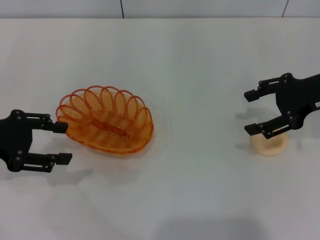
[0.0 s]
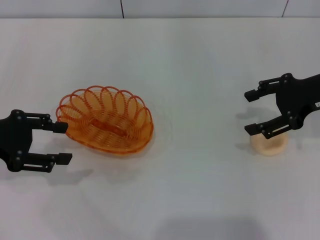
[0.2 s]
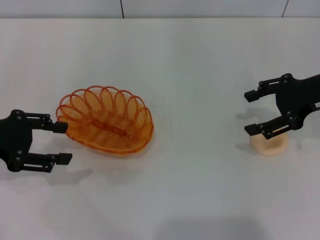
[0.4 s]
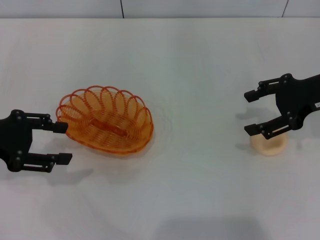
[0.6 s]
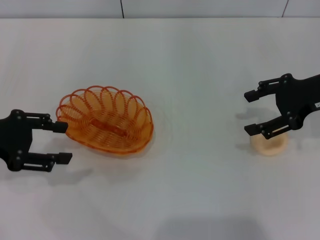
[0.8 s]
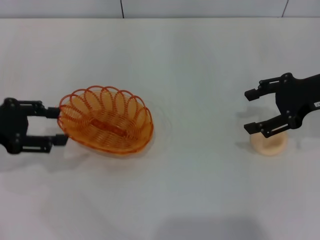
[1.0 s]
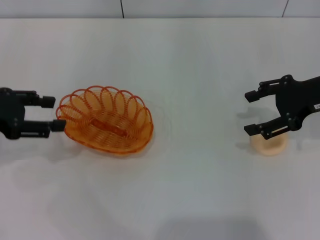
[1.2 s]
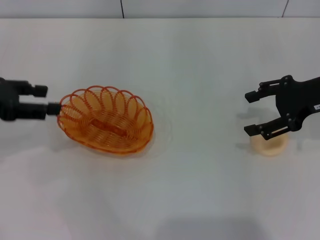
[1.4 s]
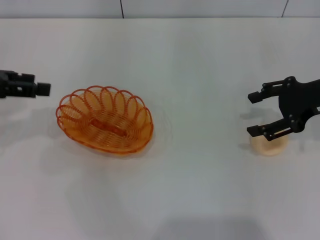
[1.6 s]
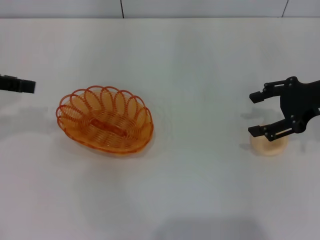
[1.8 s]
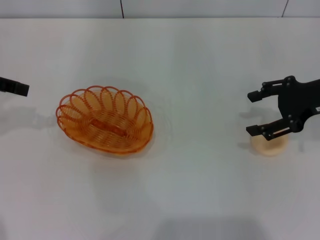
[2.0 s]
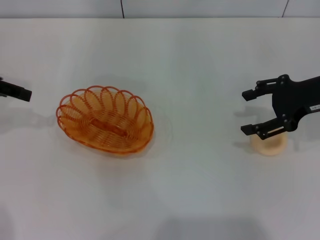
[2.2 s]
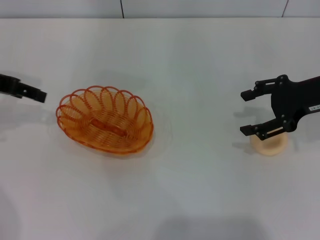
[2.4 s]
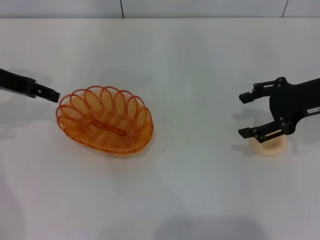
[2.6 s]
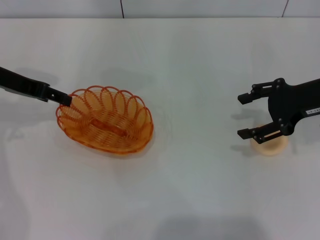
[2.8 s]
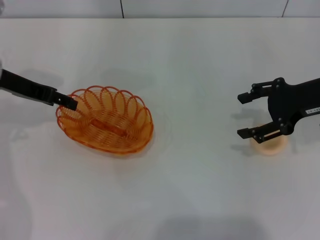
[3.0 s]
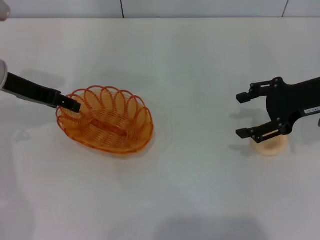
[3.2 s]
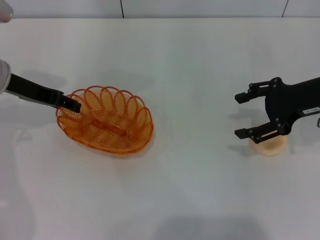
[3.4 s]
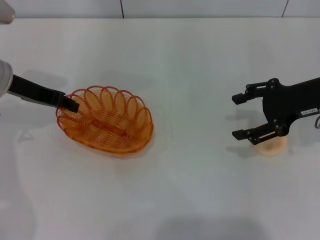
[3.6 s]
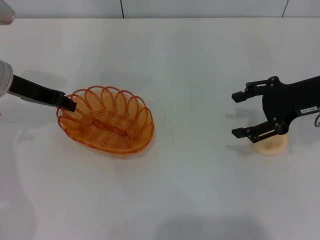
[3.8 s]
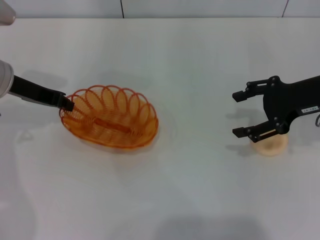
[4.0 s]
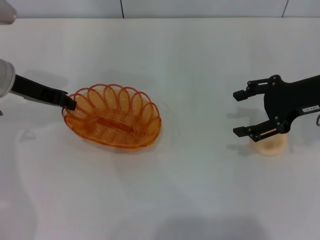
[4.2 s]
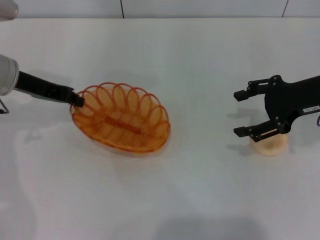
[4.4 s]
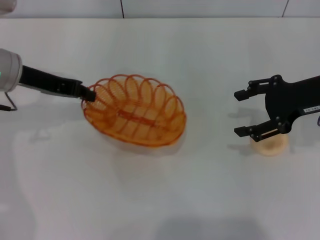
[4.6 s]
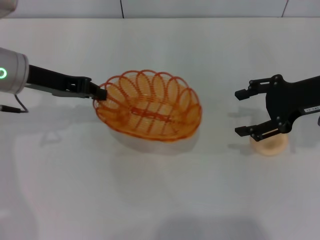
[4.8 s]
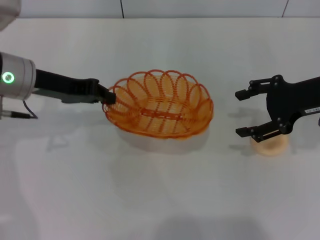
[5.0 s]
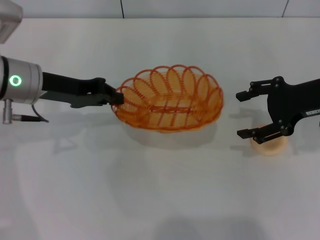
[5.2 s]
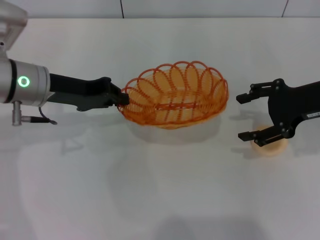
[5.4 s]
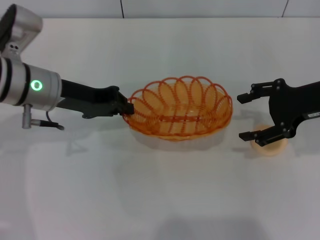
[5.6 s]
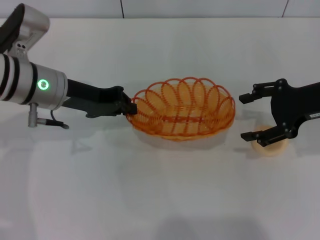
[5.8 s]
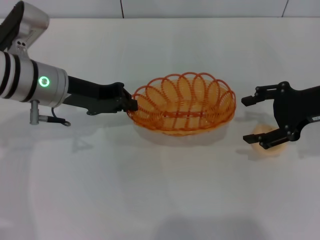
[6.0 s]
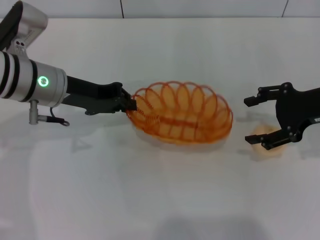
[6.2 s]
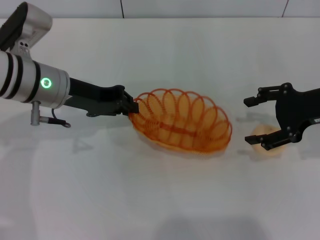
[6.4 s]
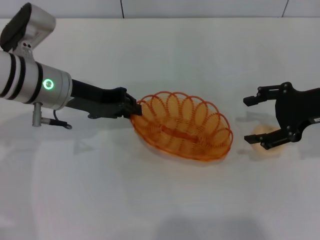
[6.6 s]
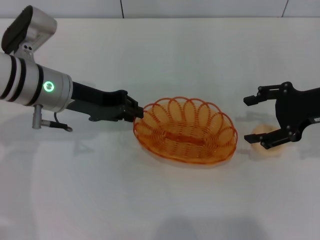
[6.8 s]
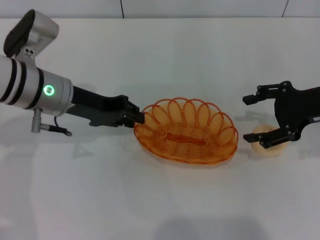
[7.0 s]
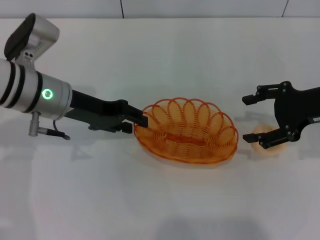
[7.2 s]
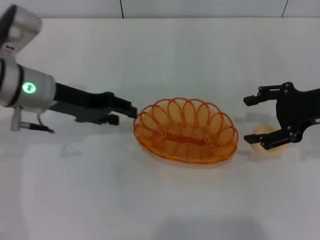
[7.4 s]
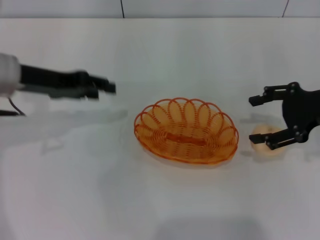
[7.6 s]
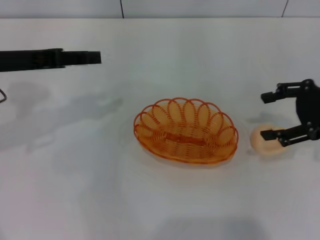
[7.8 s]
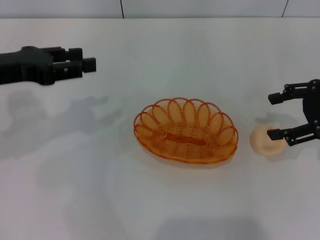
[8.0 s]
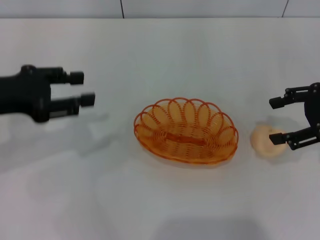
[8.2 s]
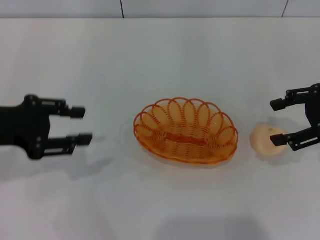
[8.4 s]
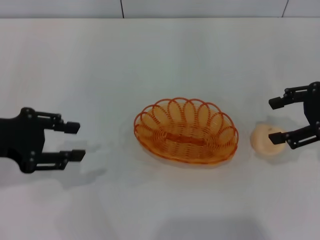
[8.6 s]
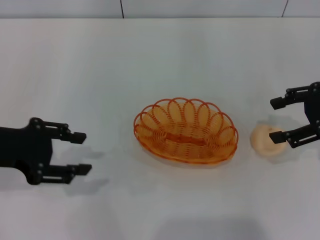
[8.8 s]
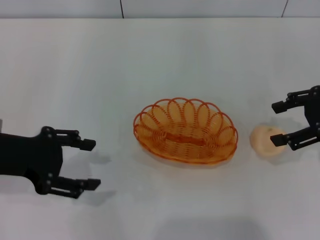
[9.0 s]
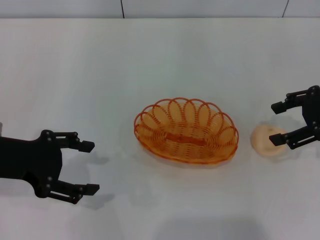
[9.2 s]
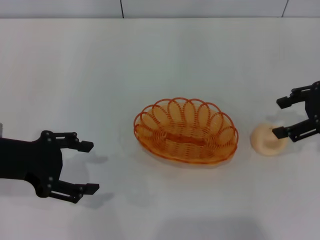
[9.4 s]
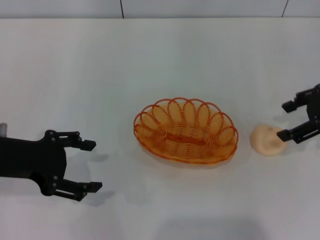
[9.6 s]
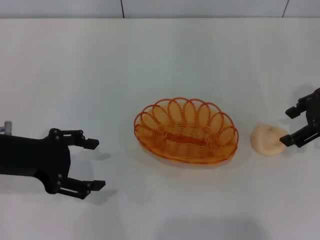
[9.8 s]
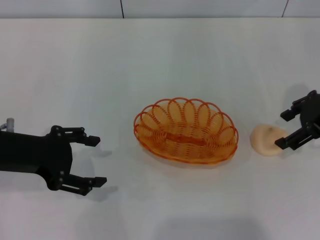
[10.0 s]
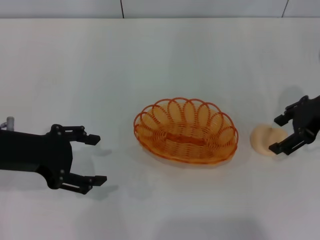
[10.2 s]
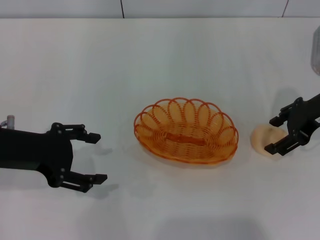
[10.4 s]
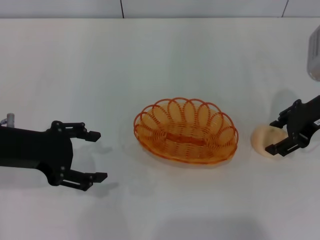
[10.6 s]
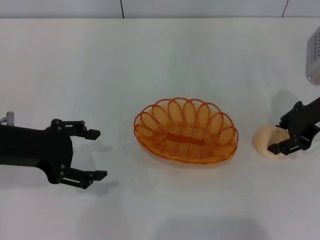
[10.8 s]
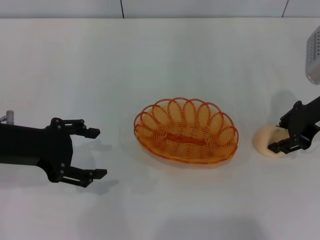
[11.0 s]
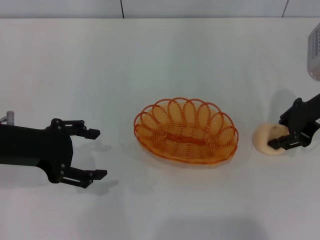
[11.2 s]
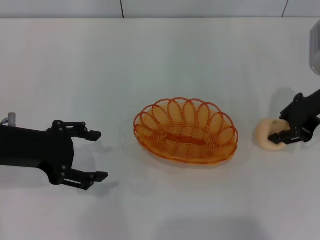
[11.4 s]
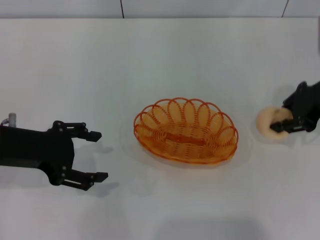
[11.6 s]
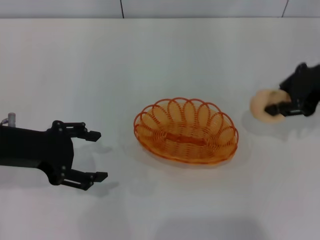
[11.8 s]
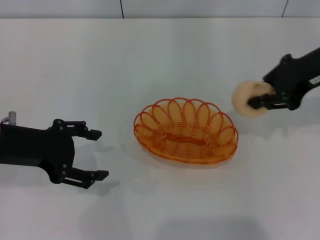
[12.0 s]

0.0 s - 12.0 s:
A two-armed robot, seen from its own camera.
Step, 0.0 s - 5.8 s: Pick up the basket with the left gripper.
Step, 6.0 s - 10.0 s: Place the basket in the center of view with the left gripper.
Step, 10.2 s - 11.4 s: Pick up the egg yolk pastry with the right gripper.
0.0 s - 1.6 s: The left gripper goes some 5 cm upward.
1.6 s - 3.0 s: The left gripper is displaced forward and to the right by approximately 10 cm.
3.0 s - 4.4 s: The left gripper closes.
4.4 s - 6.0 s: The left gripper goes approximately 5 cm to the right.
6.0 s - 7.6 s: The left gripper shifts by about 5 cm, and opens.
7.6 s - 9.0 s: The left gripper heads backward, covering about 10 cm.
9.0 s - 10.4 s: The right gripper shifts by about 5 cm.
10.4 s - 12.0 s: The right gripper moves upward, some 5 cm, and closes up.

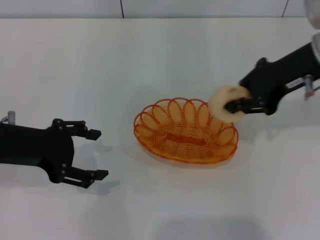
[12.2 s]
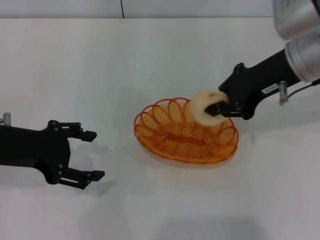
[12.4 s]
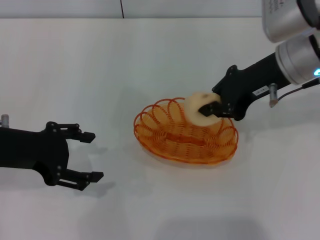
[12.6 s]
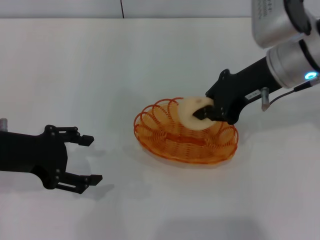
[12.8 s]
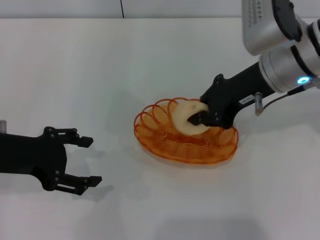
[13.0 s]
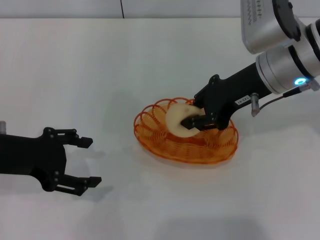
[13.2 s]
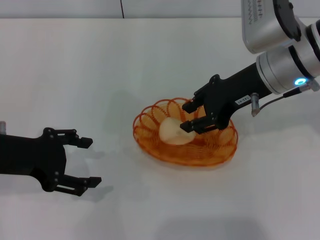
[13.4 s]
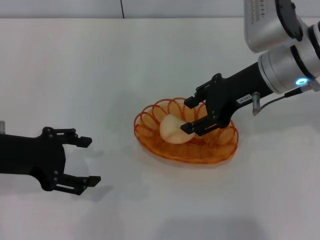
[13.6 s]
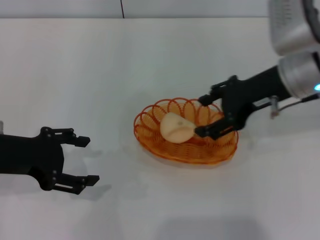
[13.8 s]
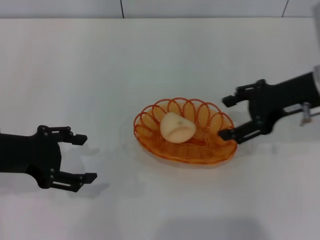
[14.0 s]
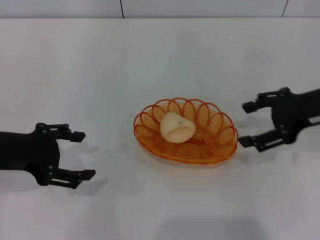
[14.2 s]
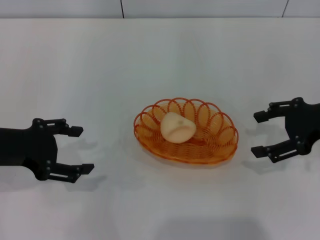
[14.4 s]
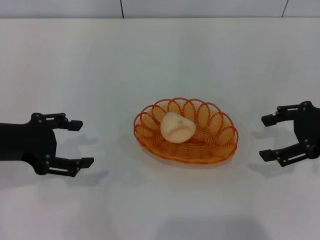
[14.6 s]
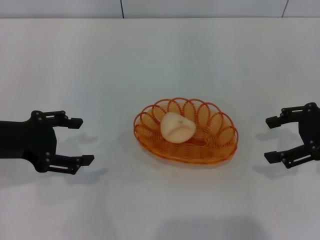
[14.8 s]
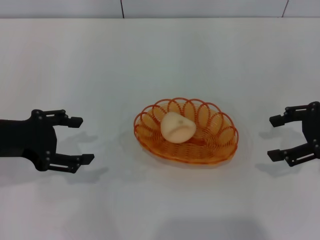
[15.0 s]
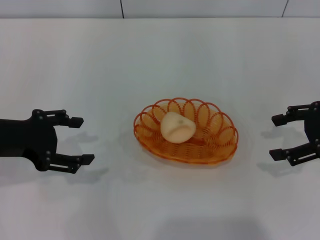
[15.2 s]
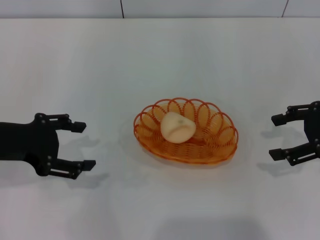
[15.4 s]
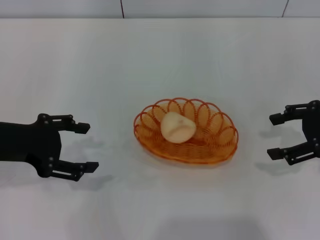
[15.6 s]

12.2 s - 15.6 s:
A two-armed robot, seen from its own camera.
Step, 12.2 s - 14.0 s: Place the egg yolk pastry into the basket with the right gripper.
12.2 s - 13.8 s: The right gripper opens.
13.8 s - 15.6 s: The right gripper travels to the right by approximately 10 cm.
